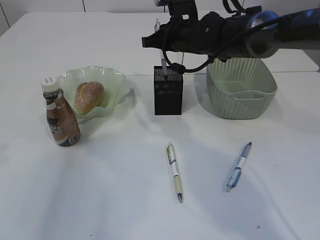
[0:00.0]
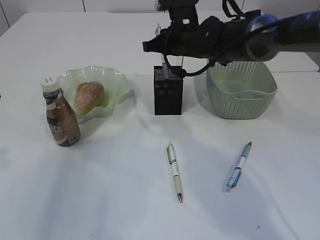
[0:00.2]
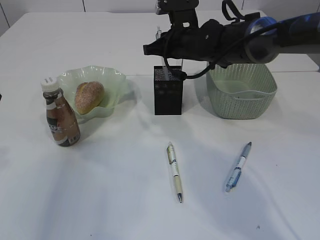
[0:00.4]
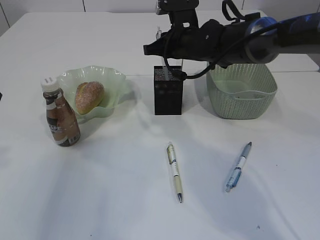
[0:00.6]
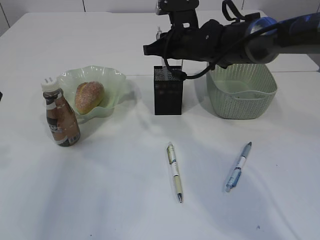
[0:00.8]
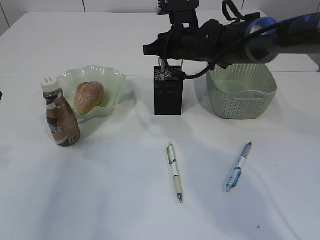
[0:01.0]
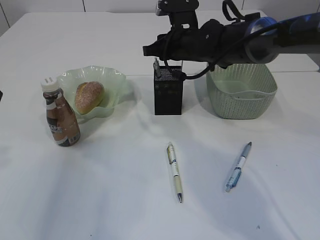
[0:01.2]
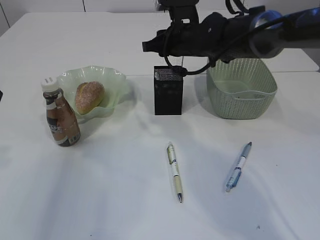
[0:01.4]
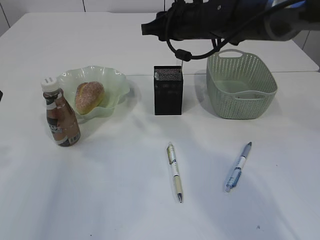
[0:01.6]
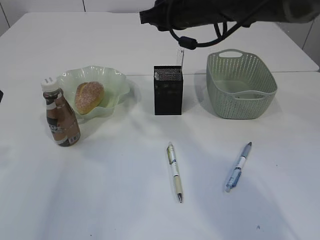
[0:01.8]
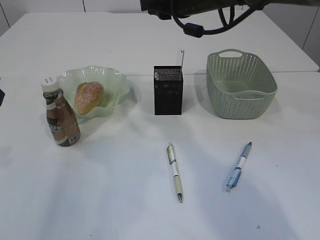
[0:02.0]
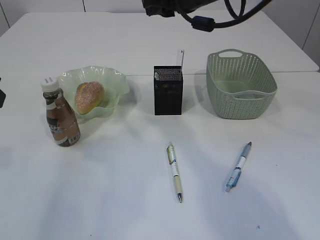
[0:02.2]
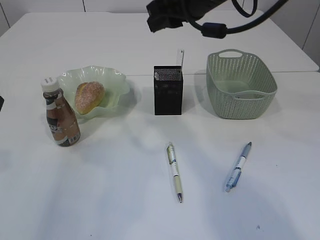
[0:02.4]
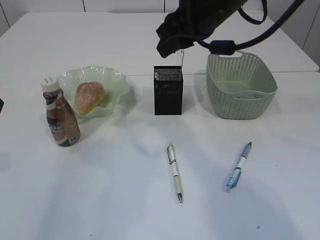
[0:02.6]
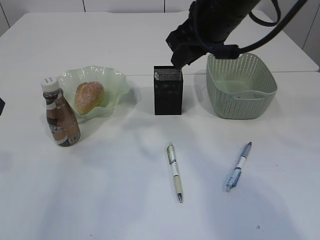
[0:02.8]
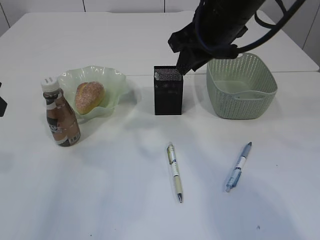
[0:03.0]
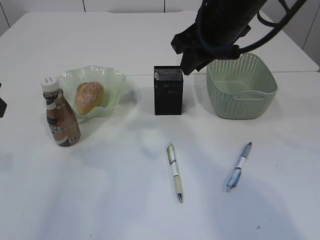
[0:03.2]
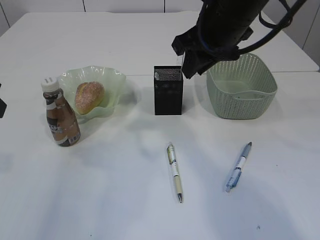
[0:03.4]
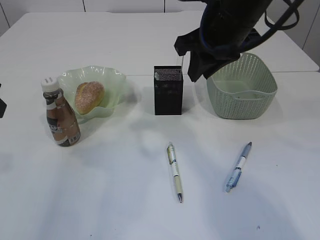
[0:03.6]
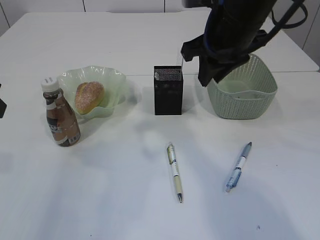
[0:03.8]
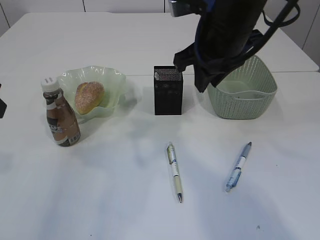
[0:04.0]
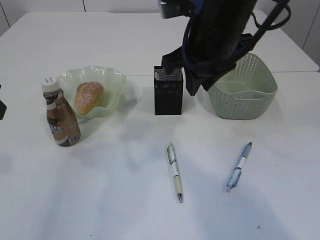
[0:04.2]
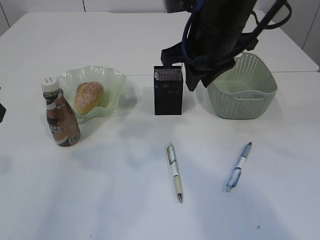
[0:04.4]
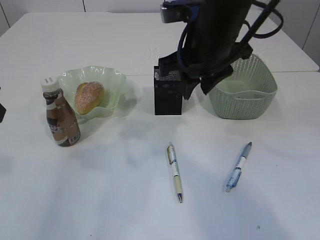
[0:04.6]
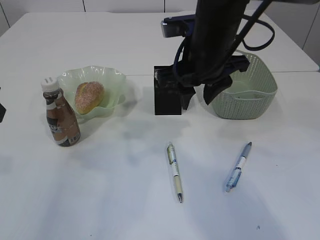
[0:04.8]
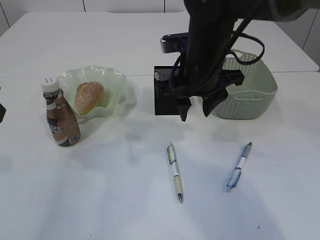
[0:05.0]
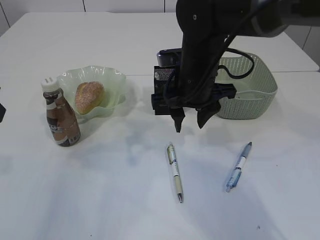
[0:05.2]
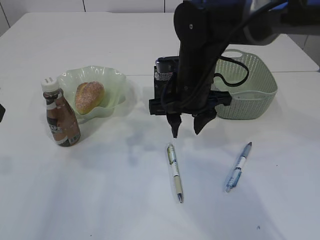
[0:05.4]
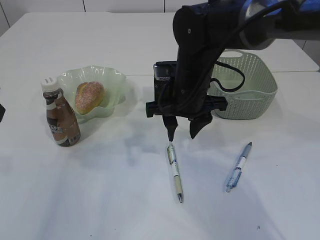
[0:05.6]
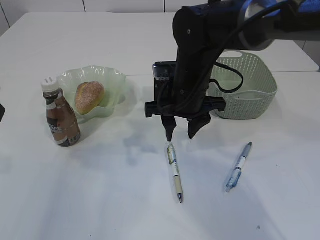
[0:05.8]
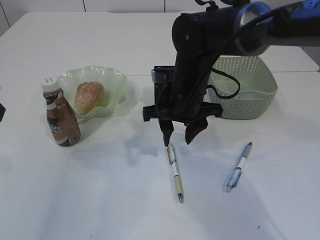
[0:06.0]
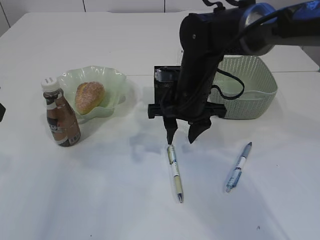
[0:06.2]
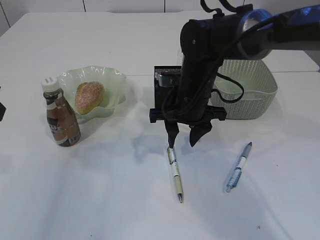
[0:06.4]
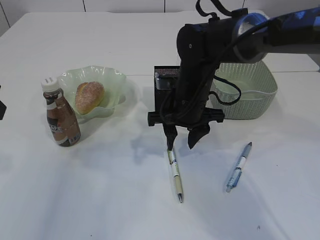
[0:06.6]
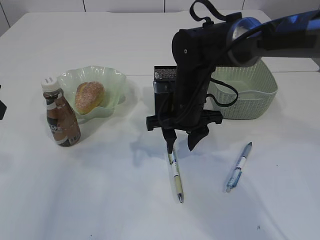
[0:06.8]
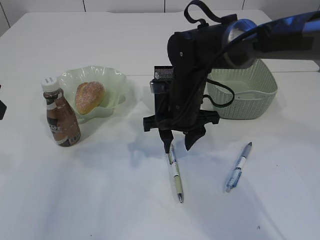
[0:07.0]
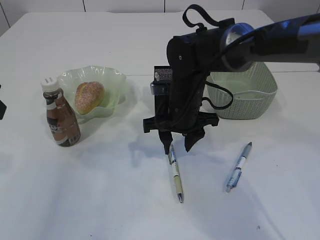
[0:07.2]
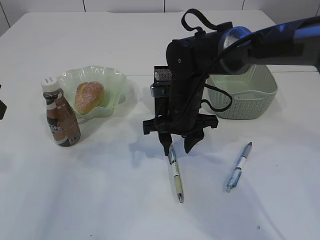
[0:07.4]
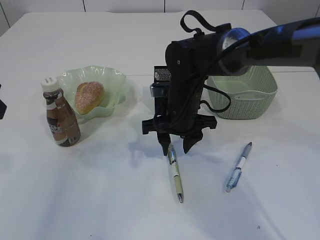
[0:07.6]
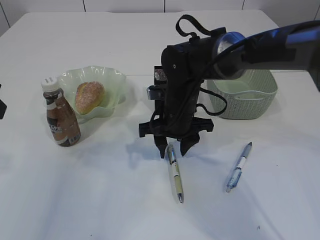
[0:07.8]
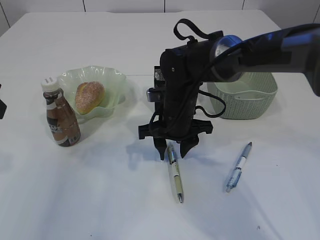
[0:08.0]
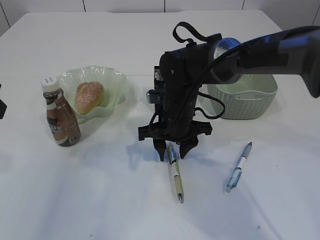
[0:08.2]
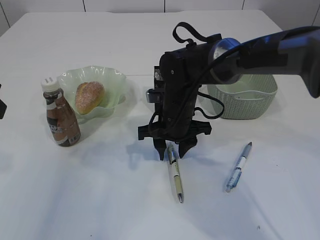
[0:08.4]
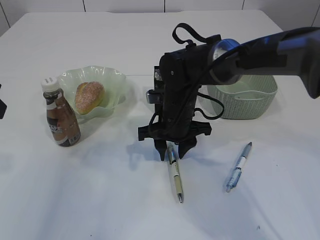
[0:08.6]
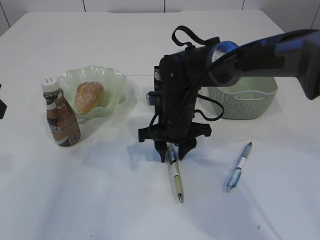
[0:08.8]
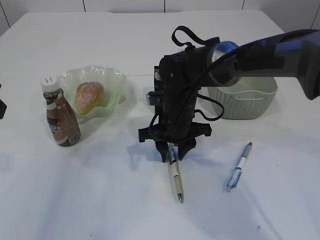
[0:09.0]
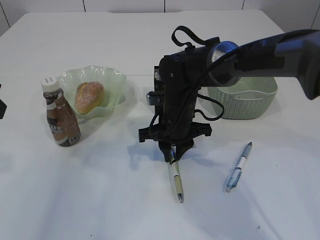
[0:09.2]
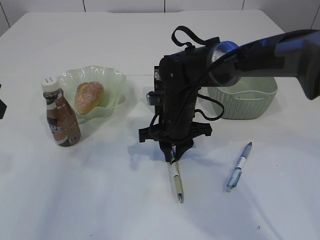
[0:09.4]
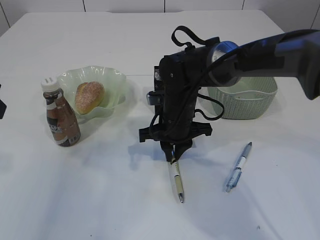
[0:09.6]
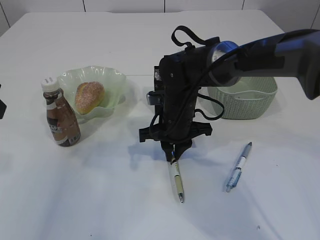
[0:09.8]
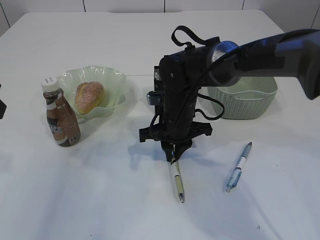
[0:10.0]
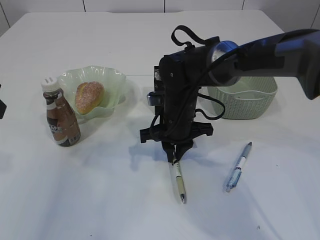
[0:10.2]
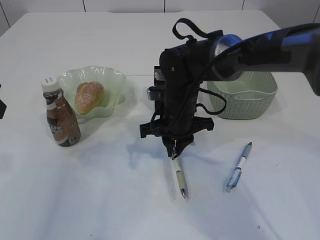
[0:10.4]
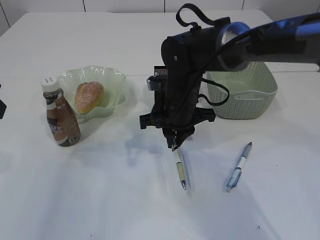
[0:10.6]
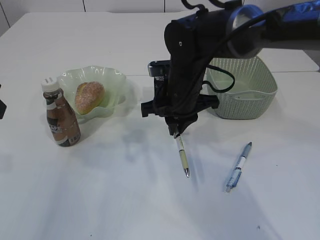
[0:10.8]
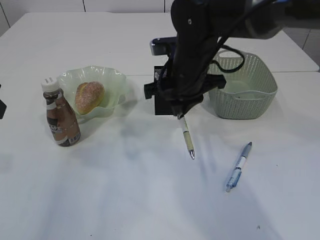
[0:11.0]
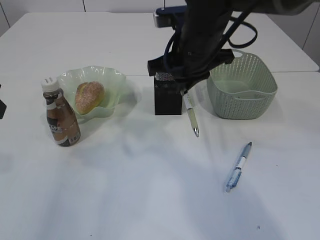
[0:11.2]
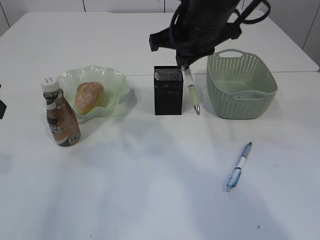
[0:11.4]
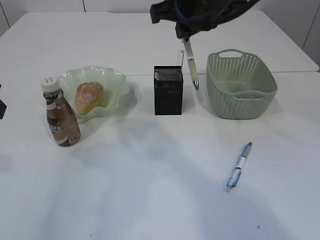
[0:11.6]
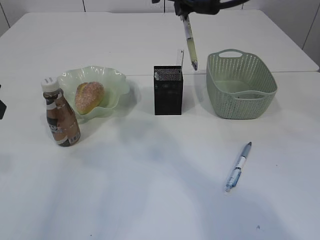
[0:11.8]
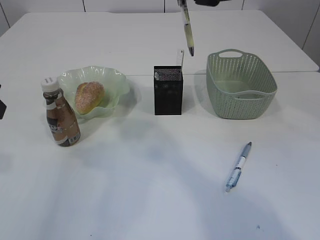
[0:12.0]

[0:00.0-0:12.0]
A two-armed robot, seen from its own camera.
Step, 0:01.6 to 0:11.2: Pick up the pen with right arm.
0:00.0 to 0:01.6: The right gripper opens its fingers.
0:01.6 to 0:03.0: The right gripper goes about 10 cm backward and upward.
0:03.0 to 0:04.4: The grippers make only small movements.
0:04.4 to 0:06.0: The right gripper moves downward, about 15 cm.
0:06.0 to 0:07.6: The grippers stay close to where they were, moving slightly.
0:07.6 to 0:09.0: The grippers move only a little.
0:09.0 to 0:10.4: The right gripper closes up.
0:10.4 to 0:12.0: The right gripper travels upward by some 25 cm.

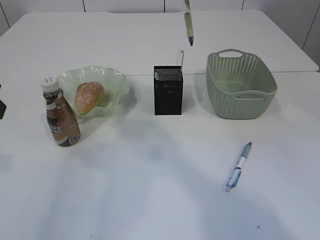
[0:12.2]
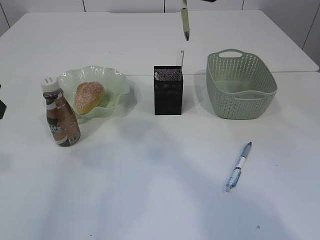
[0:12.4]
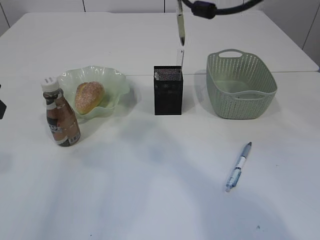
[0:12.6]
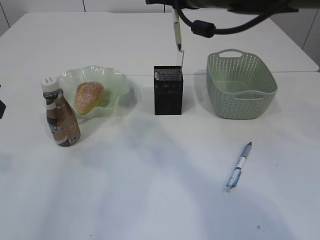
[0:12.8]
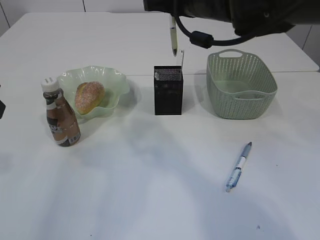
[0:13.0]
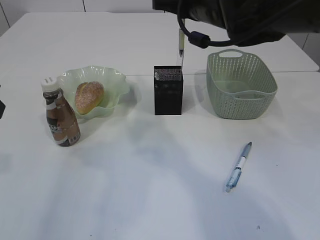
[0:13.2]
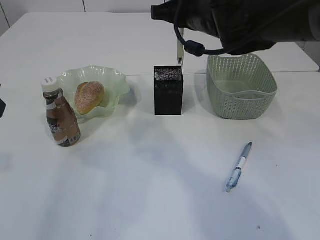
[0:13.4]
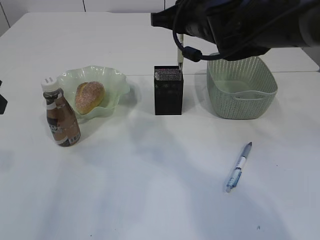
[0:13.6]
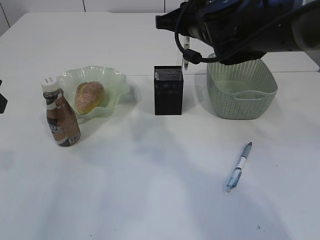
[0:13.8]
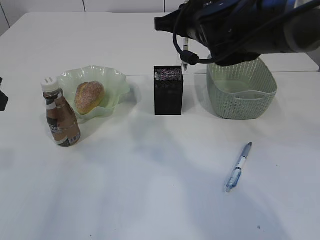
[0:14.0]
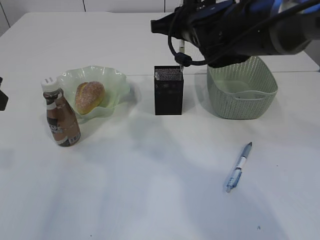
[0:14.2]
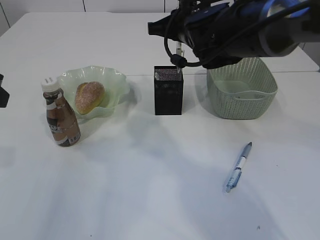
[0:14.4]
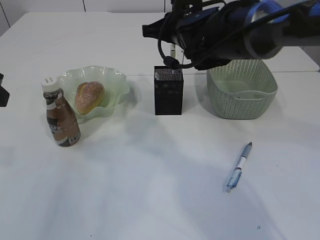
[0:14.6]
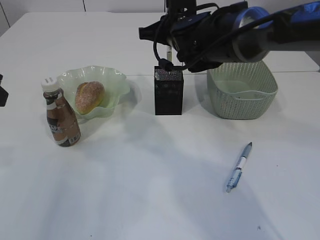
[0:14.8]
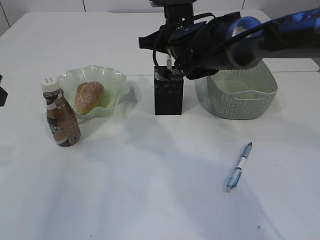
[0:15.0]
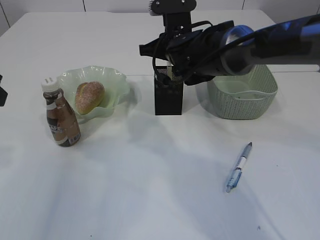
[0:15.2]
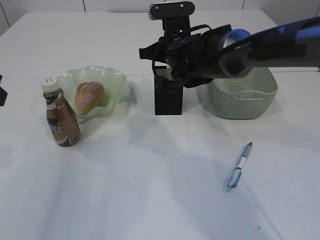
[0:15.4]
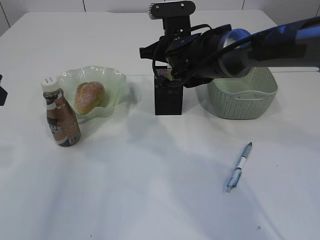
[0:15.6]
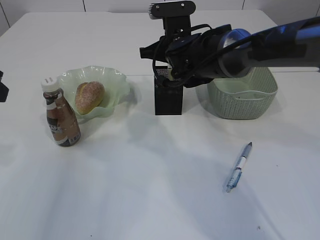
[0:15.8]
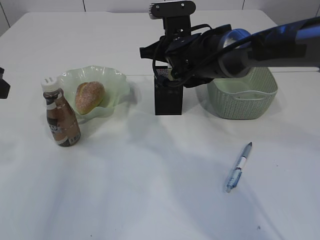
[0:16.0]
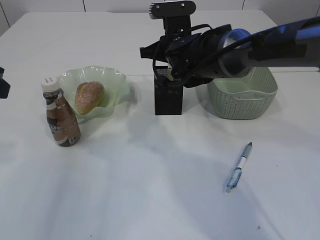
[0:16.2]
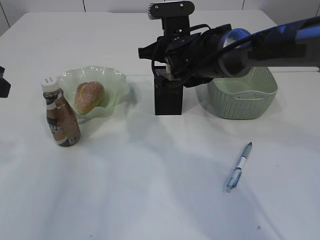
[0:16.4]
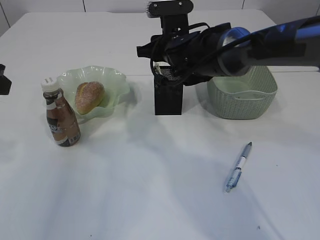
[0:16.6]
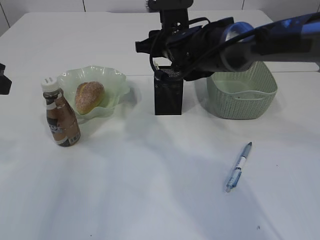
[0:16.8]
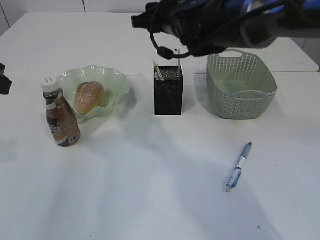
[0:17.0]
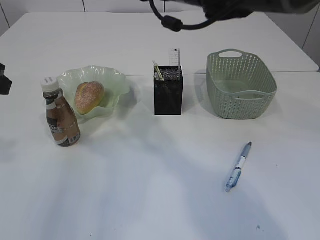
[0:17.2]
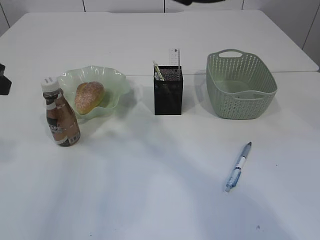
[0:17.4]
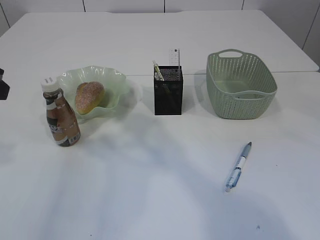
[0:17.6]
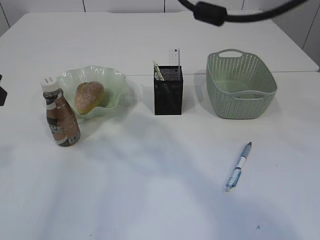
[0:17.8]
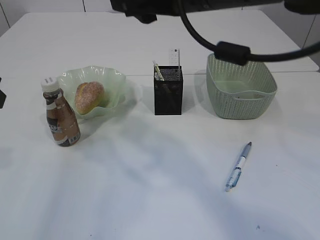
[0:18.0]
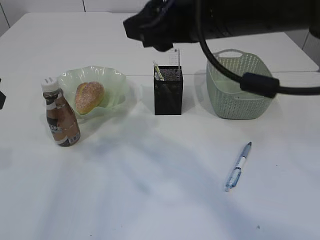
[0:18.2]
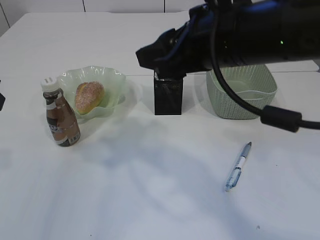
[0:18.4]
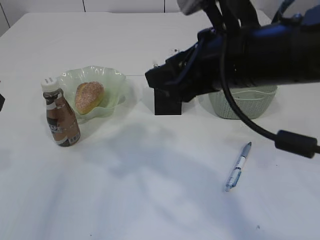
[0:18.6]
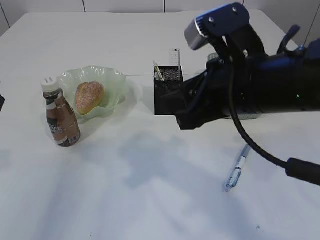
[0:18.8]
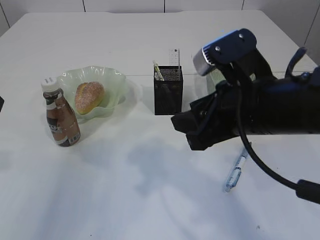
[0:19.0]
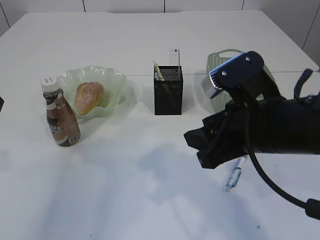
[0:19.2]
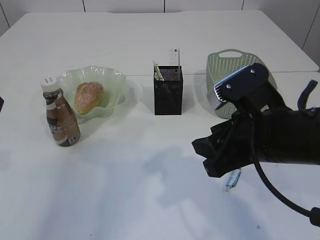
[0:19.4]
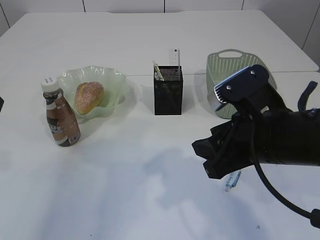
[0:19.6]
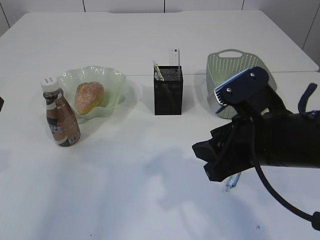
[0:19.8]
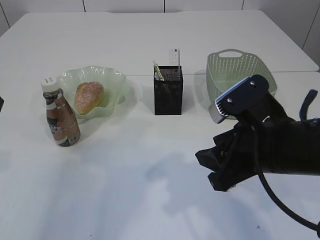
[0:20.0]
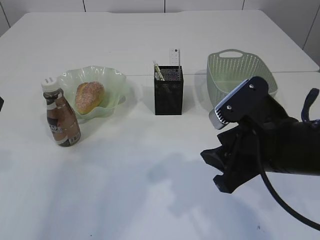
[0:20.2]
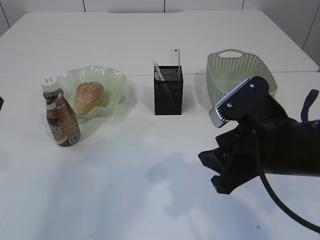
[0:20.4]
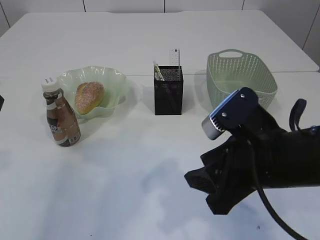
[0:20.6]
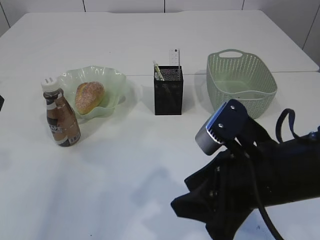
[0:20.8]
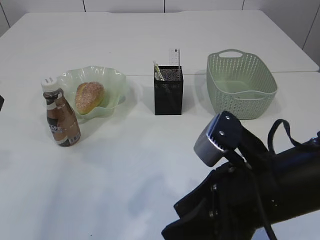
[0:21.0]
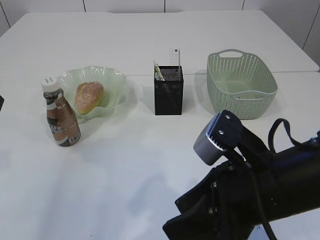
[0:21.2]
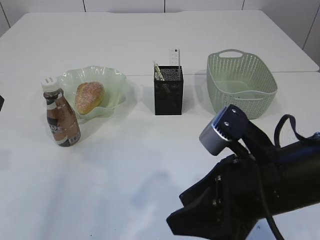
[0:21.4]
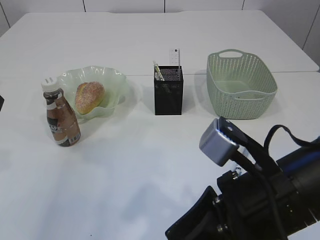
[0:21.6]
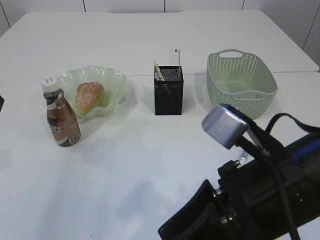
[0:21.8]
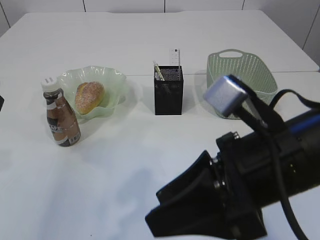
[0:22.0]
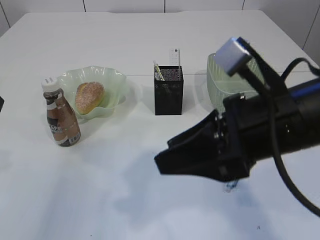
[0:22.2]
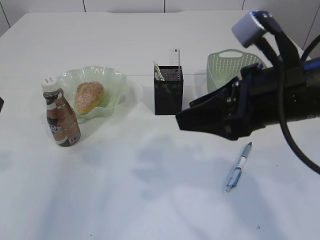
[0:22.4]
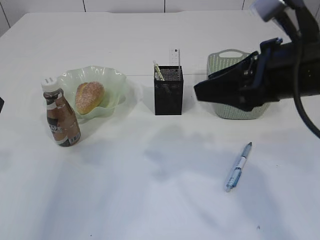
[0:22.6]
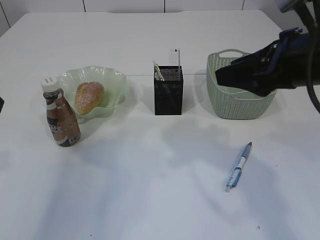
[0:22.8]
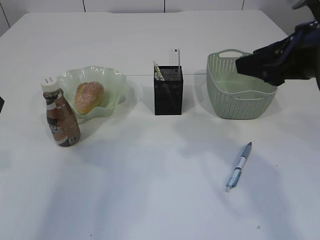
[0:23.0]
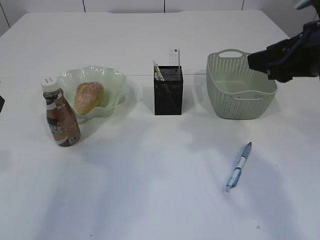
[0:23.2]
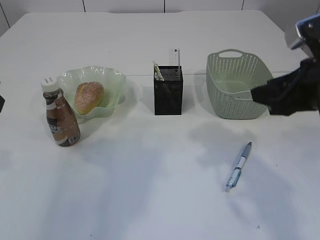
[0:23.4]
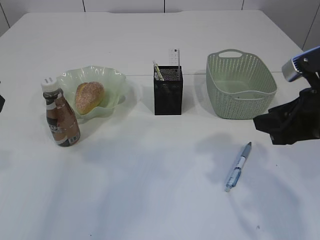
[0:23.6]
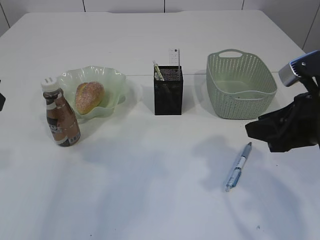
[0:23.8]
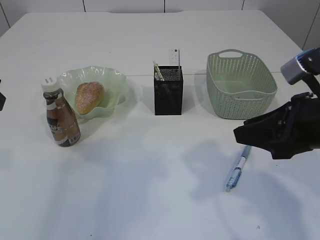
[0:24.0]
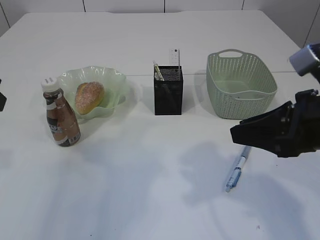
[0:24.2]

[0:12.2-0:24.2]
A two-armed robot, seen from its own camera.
Step, 0:12.2 to 0:17.0: Place the pen into the pen holder.
0:12.2 to 0:13.8: The right gripper goes about 10 cm downward.
0:13.8 to 0:15.2: The right gripper goes roughly 10 cm downward and forward.
0:15.2 to 0:16.6: The right gripper opens up.
0:16.6 to 0:18.2: The right gripper goes some 20 cm backward and upward.
0:18.2 to 0:19.8: The right gripper shifts some 15 cm downward, backward and to the right.
0:19.8 to 0:21.2: The right gripper changes place by roughly 5 cm.
0:21.2 to 0:22.6: The right gripper heads upward, forward and to the right, covering some 10 cm.
0:22.6 to 0:24.2: The right gripper moves some 5 cm.
